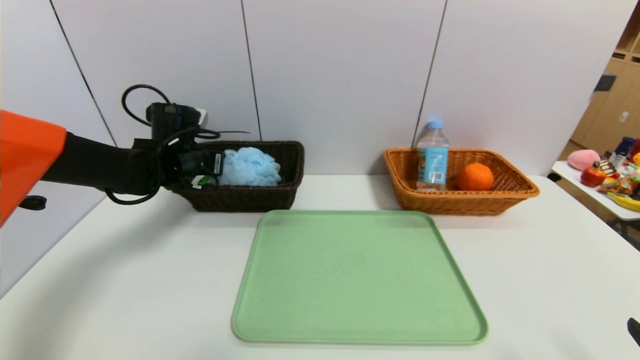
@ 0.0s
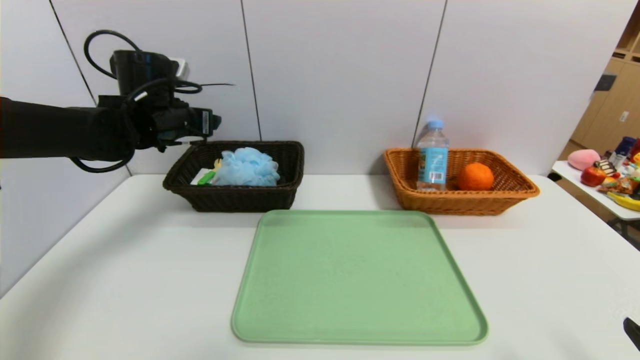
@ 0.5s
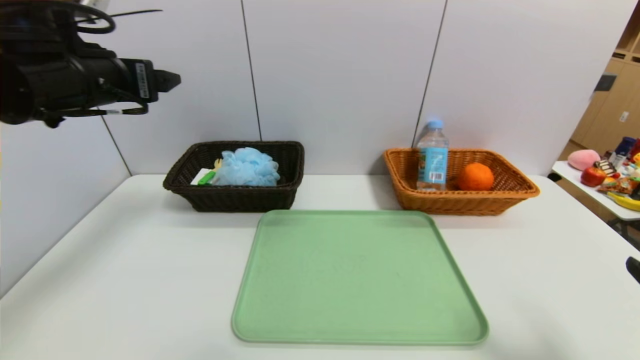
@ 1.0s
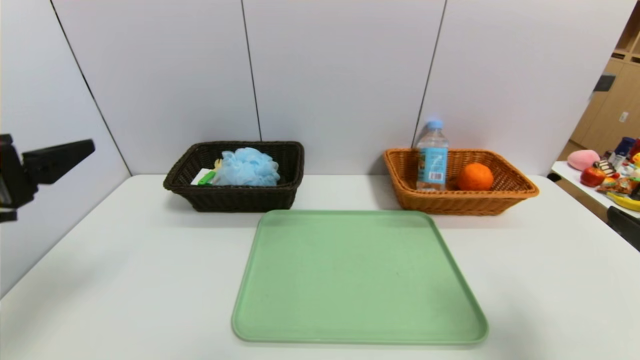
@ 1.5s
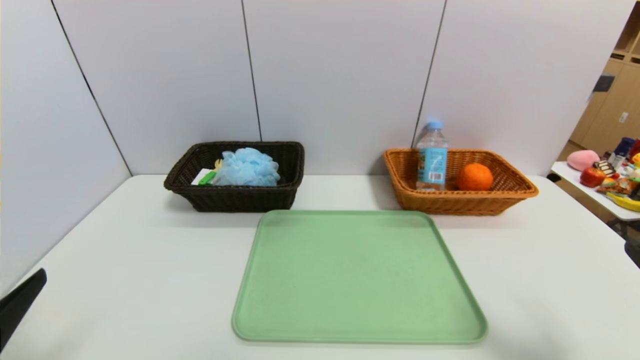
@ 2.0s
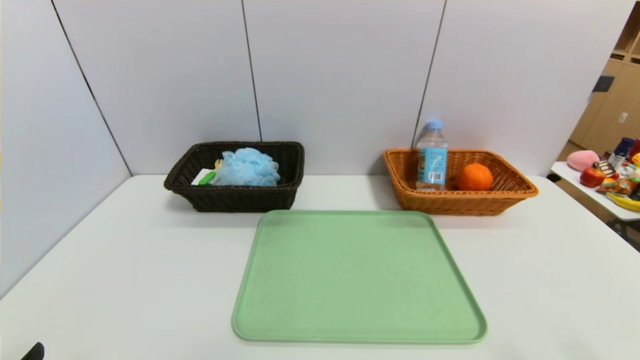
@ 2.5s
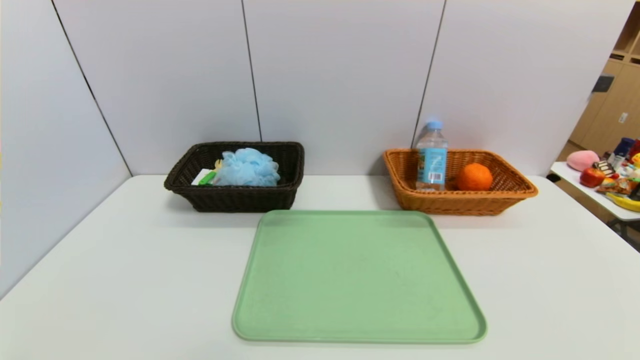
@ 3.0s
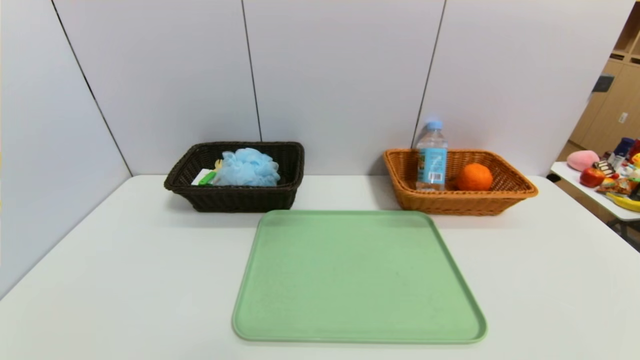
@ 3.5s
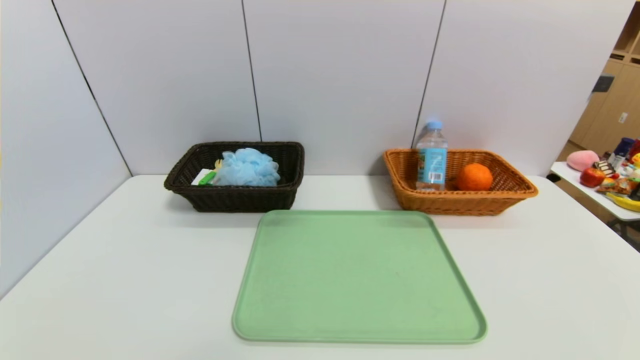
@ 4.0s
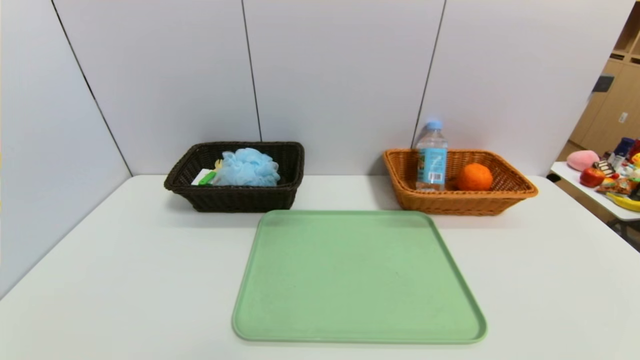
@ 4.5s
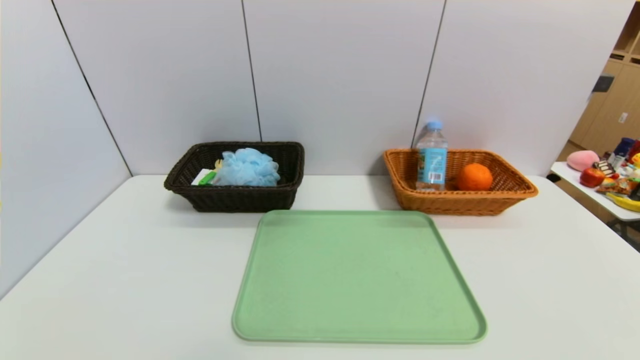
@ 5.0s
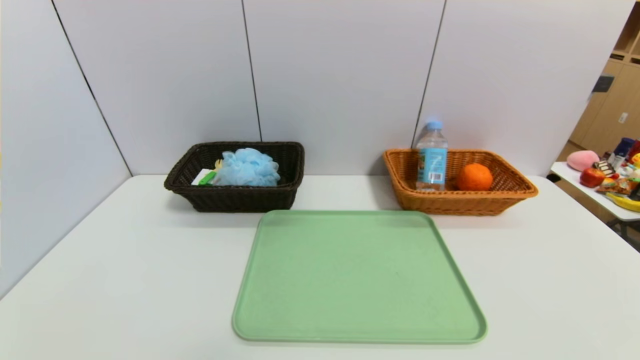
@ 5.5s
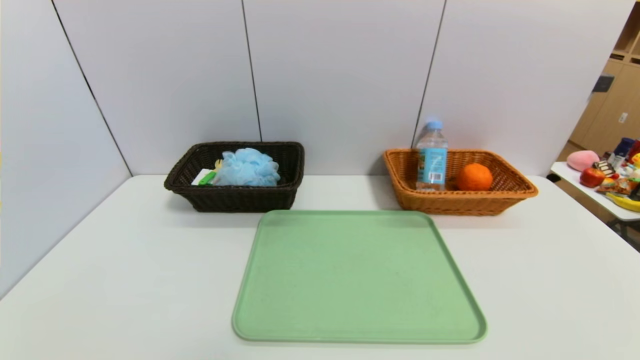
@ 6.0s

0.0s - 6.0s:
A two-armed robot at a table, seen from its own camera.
Task of the whole recording: place the food in the right basket with the right gripper, and place the non food items in the left basket with the left gripper.
0.0s - 2.0s: The left gripper goes approximately 40 cm backward, and opens.
2.0s - 4.0s: Both grippers move downward and backward, about 15 cm.

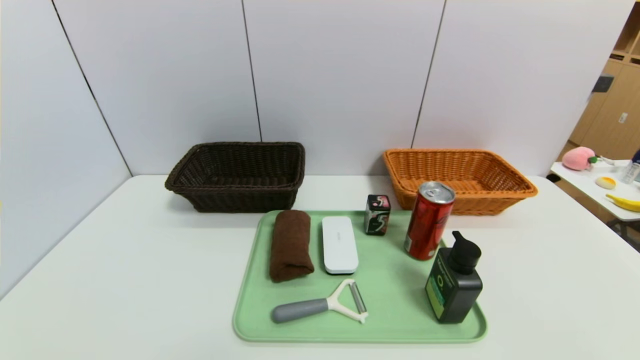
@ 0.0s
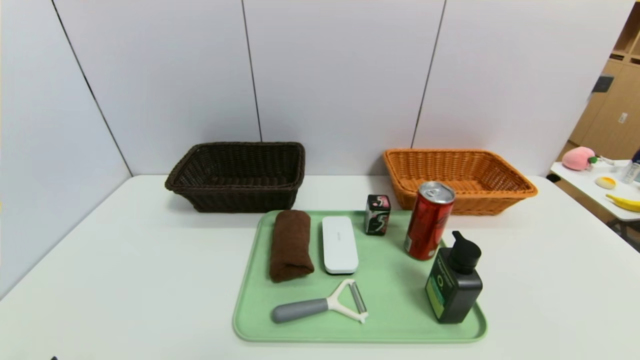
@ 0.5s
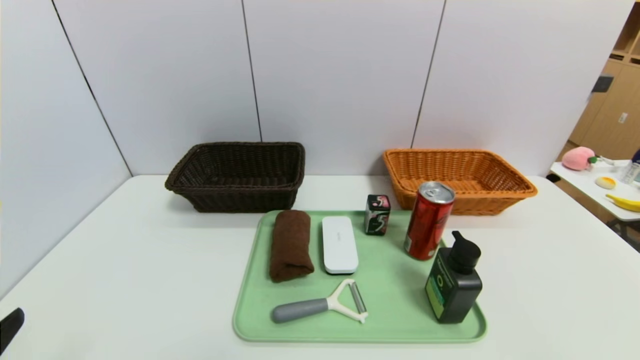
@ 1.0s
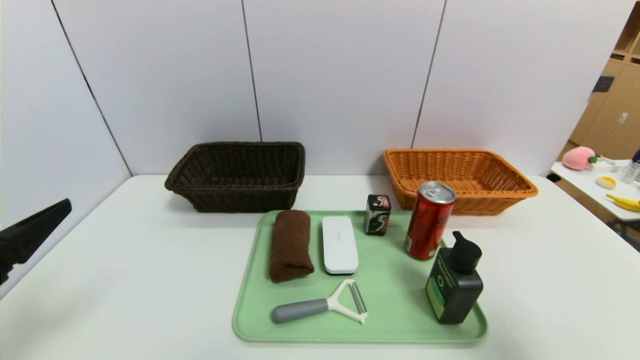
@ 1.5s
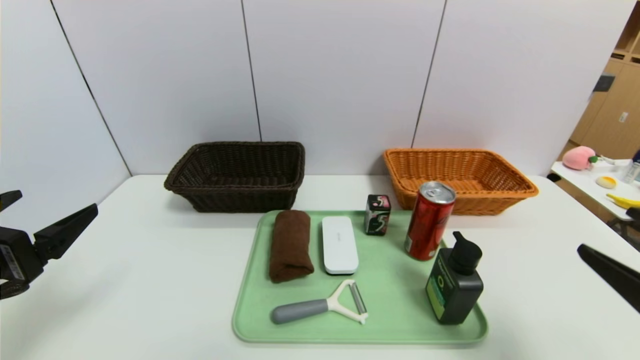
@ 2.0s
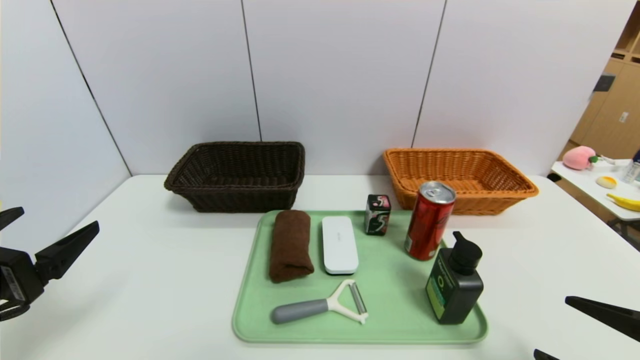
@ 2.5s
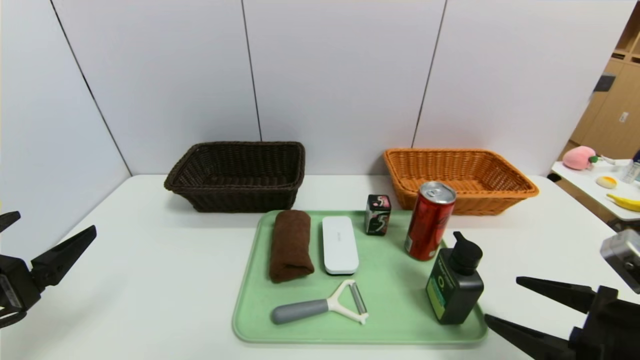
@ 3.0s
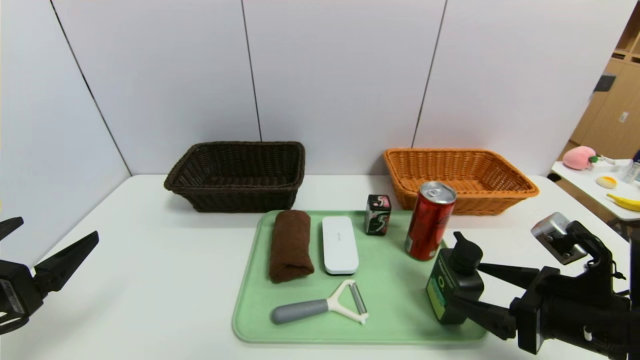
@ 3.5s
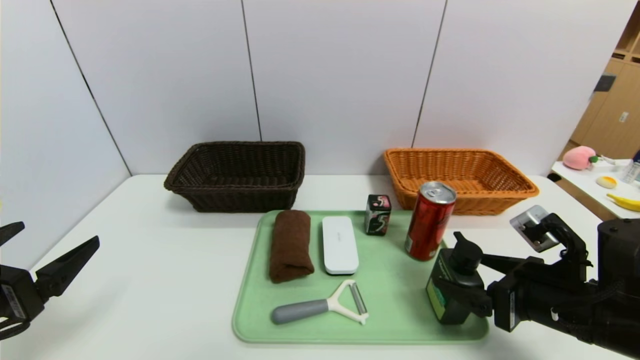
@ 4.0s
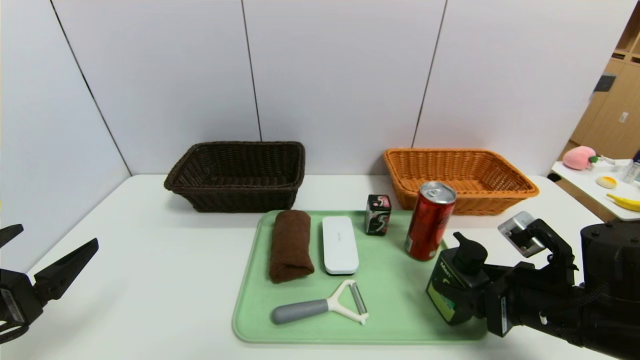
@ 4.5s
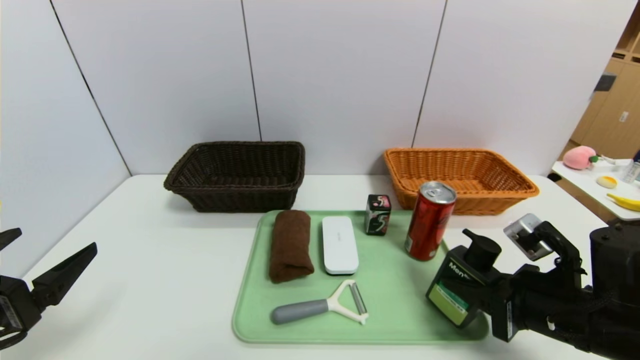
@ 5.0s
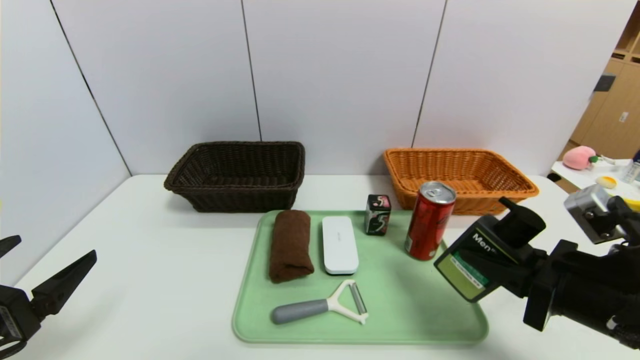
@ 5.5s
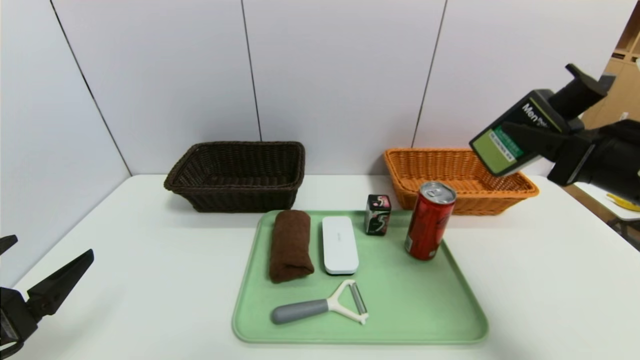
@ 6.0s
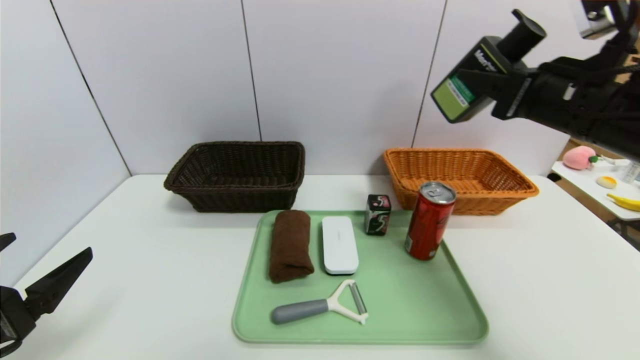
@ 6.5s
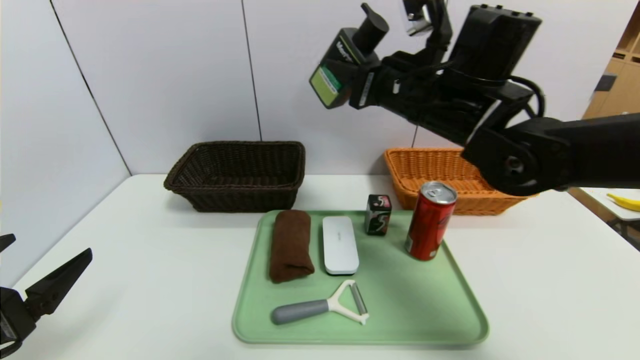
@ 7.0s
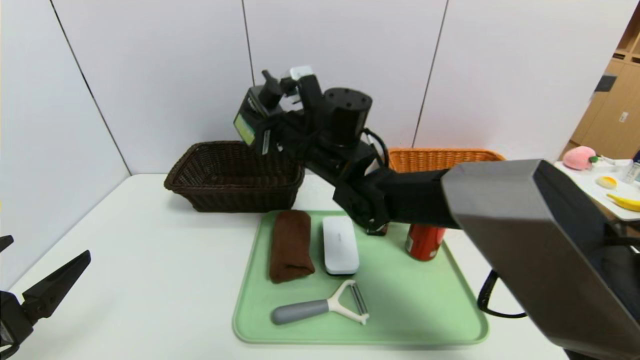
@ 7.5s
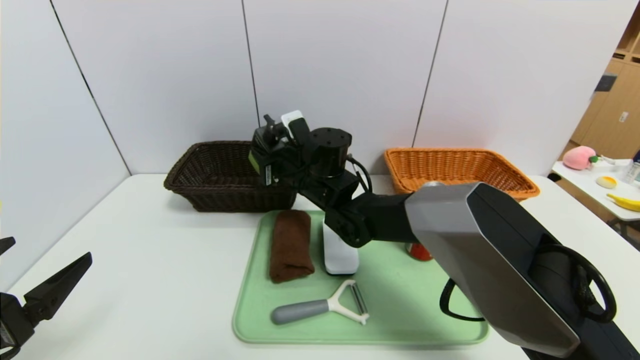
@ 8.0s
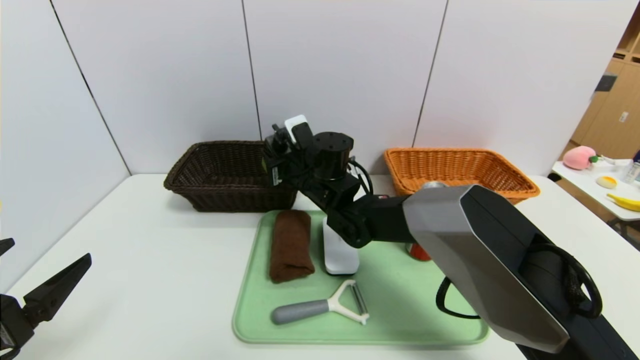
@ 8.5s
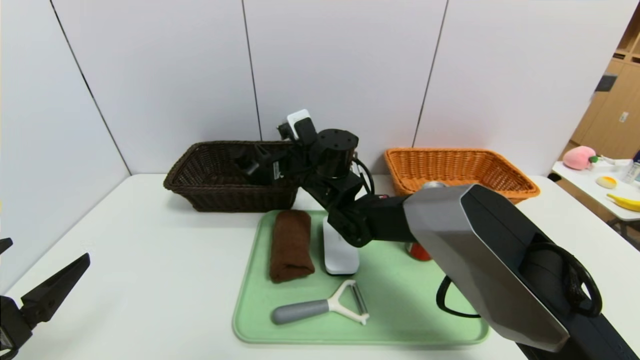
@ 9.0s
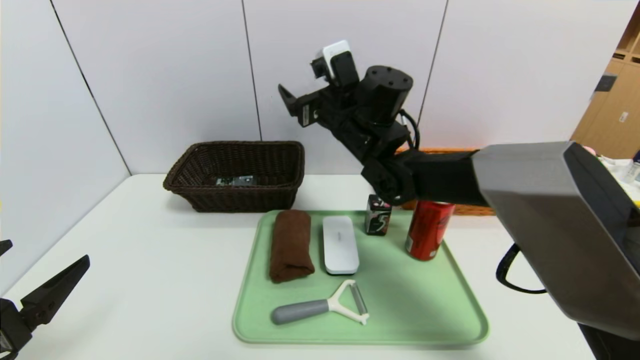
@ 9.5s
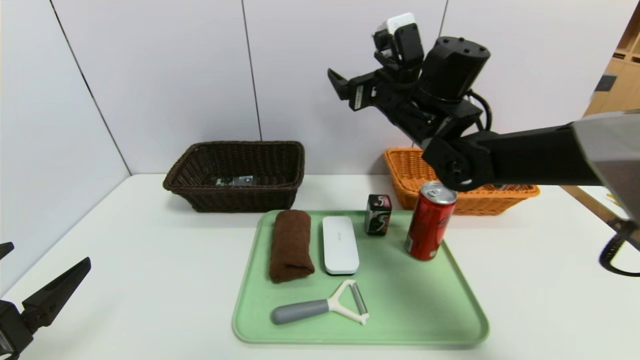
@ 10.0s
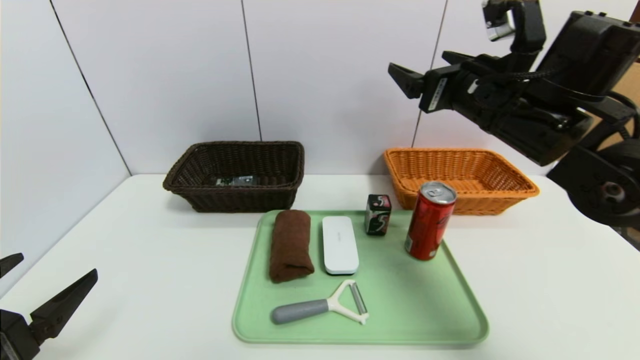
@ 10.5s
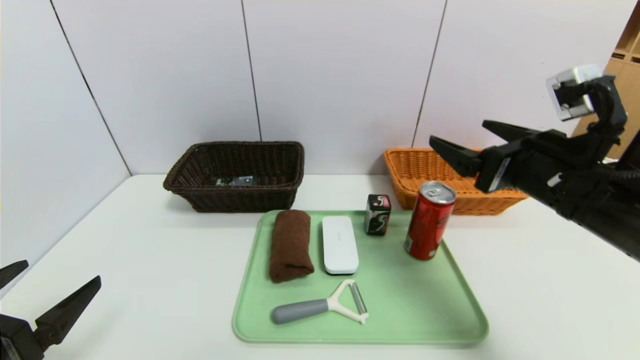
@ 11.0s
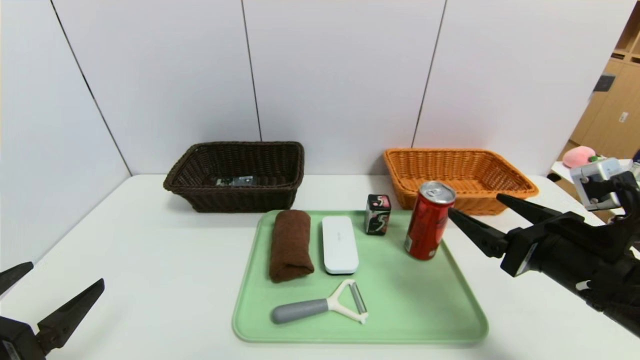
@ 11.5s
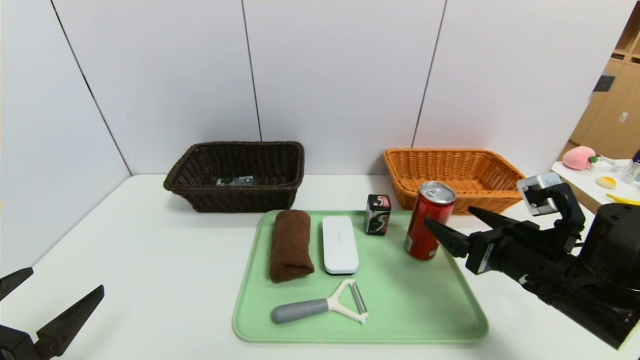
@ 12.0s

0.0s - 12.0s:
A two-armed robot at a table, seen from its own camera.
Task of the whole recording: place the food in the right basket with the right gripper, and place the non food items in the left basket with the left gripper.
Step, 0.0s - 9.0s: Grasp the hard cleanser and put it in the left basket.
0.0s - 2.0s: The two grippers go about 15 cm upward and forward.
2.0s - 4.0s: The right gripper shifts roughly 15 cm forward, downward and to the left.
4.0s - 6.0s: The right gripper goes some 15 cm upward, and closes up.
6.0s - 8.0s: The right gripper shifts about 35 cm to the left and forward.
8.0s - 10.0s: The right gripper goes approximately 20 cm to the right and upward, and opens its fingers.
10.0s - 12.0s: The right gripper shifts some 25 cm backward, downward and to the right.

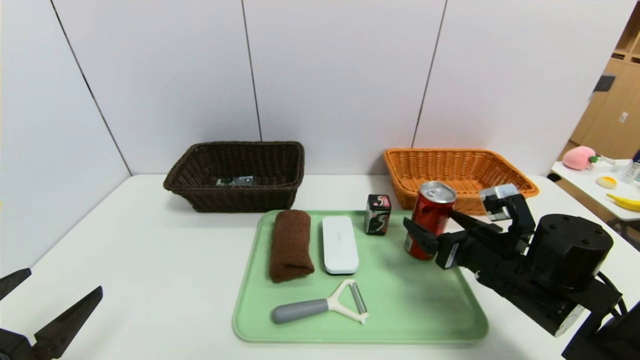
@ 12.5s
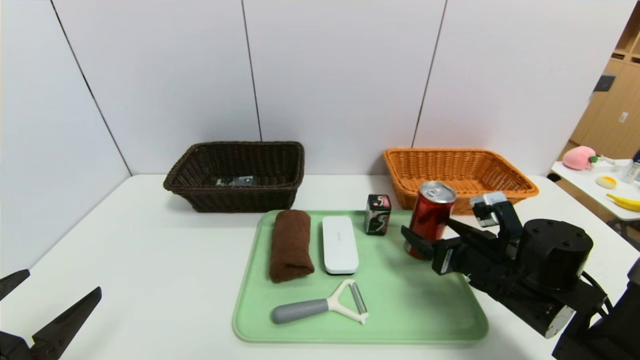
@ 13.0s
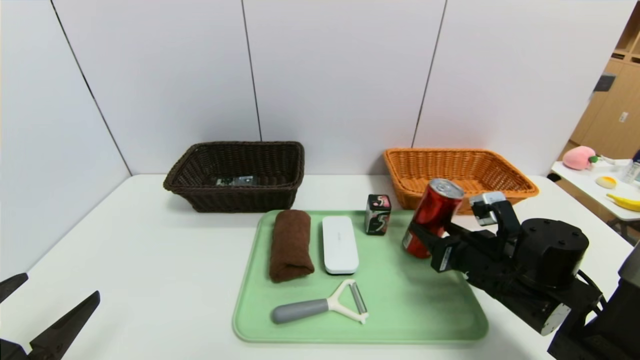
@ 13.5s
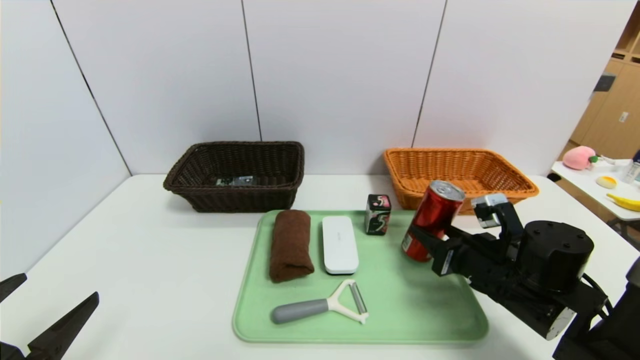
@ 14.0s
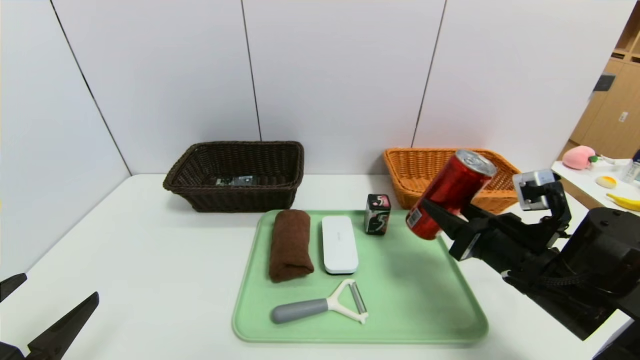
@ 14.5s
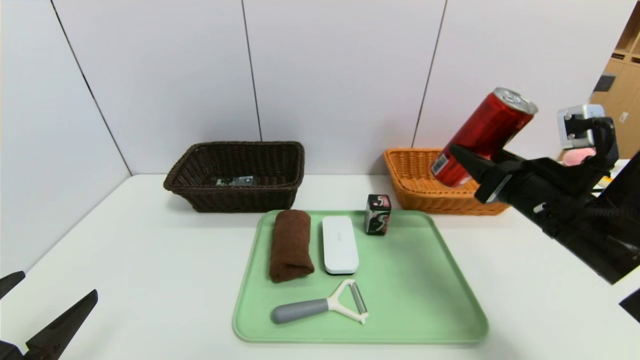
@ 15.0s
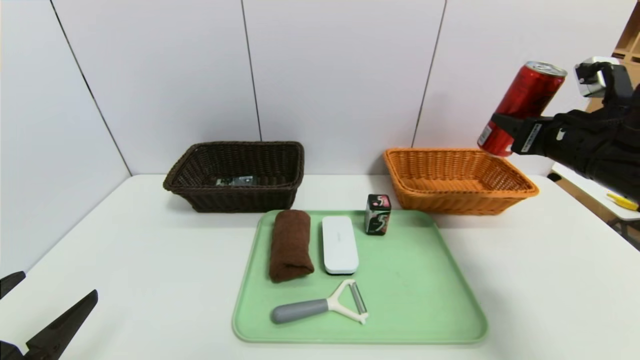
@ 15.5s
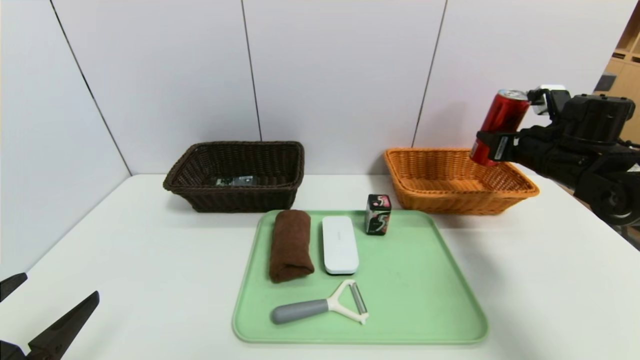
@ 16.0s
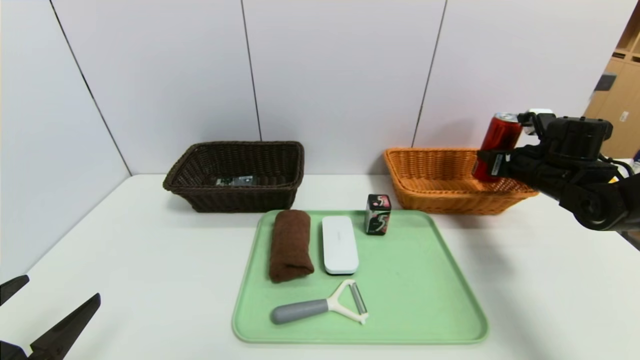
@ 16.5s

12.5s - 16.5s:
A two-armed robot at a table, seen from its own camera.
Task of the whole recording: place the food in the right basket with the right gripper, and place the non food items in the left basket with the left gripper.
12.5s - 14.5s: The right gripper closes.
14.5s - 16.5s: The right gripper travels forward and to the right by approximately 20 cm.
